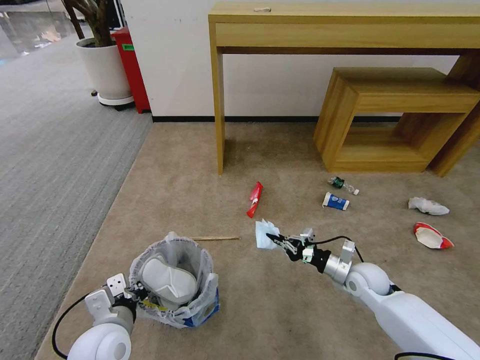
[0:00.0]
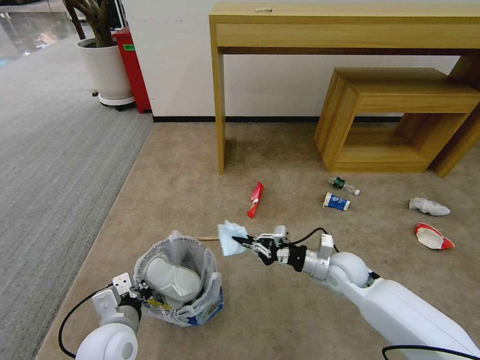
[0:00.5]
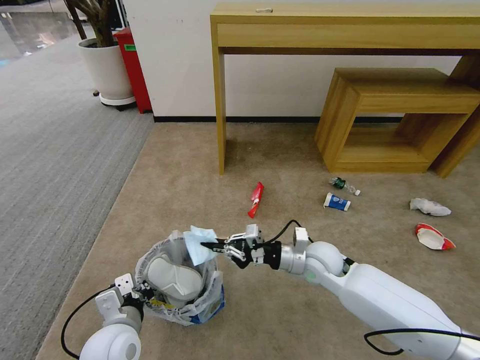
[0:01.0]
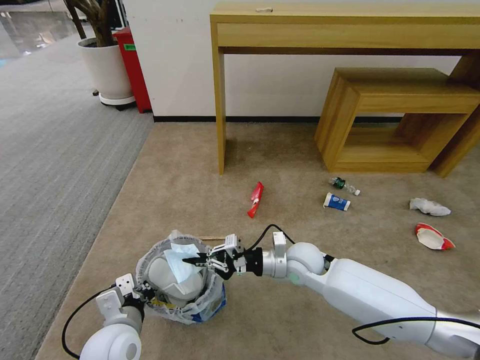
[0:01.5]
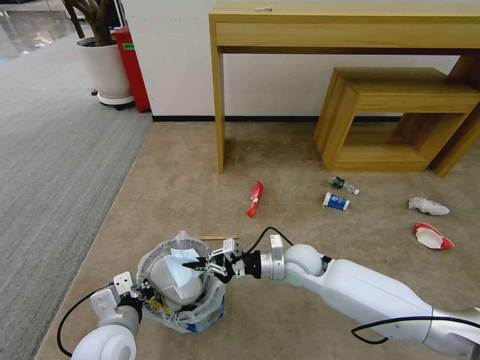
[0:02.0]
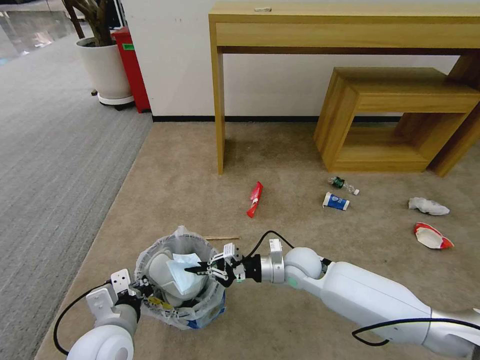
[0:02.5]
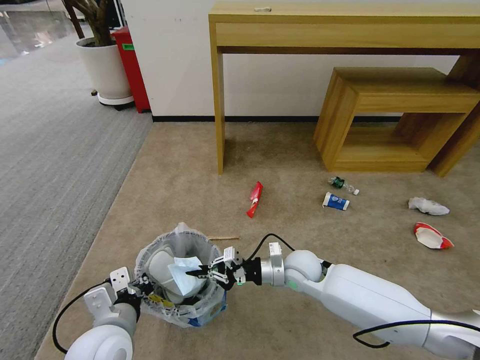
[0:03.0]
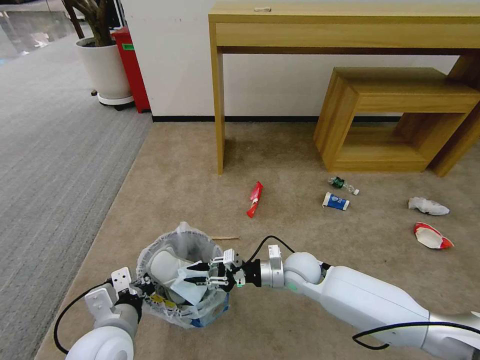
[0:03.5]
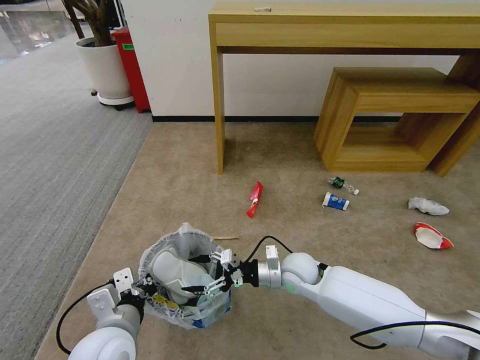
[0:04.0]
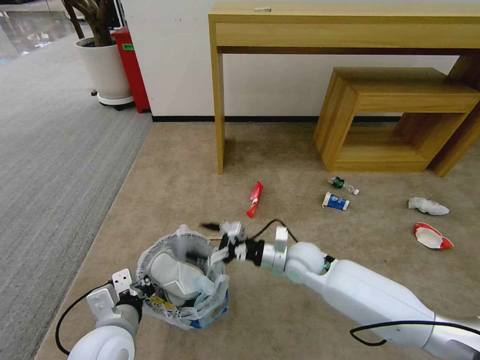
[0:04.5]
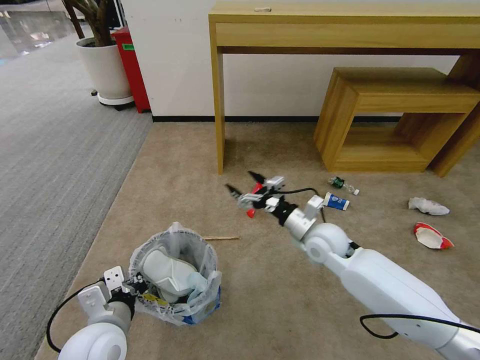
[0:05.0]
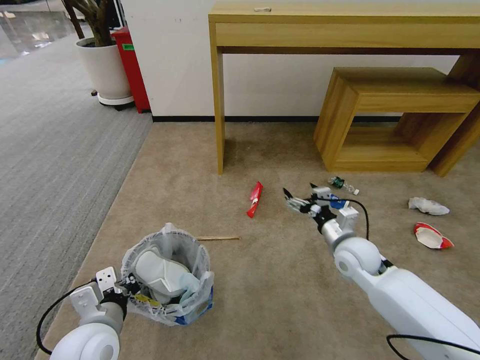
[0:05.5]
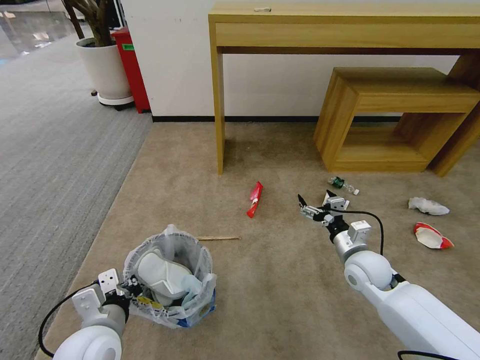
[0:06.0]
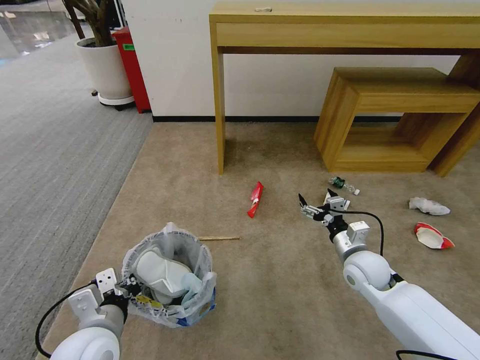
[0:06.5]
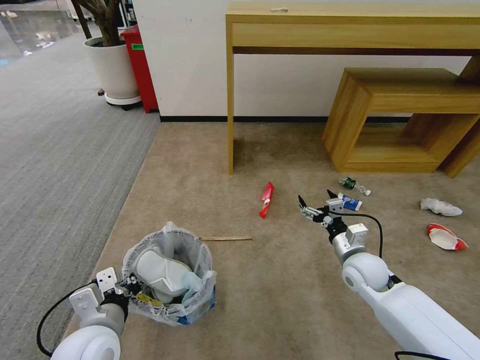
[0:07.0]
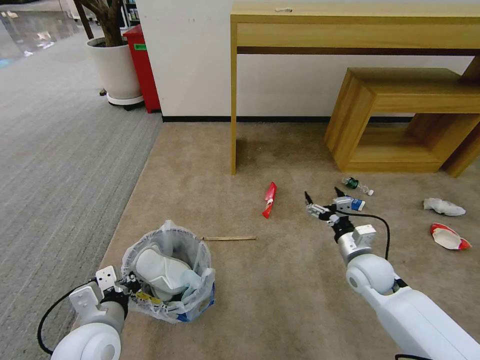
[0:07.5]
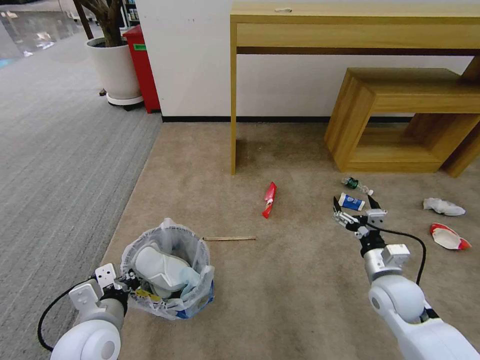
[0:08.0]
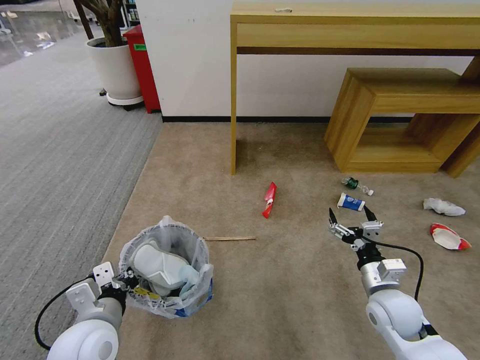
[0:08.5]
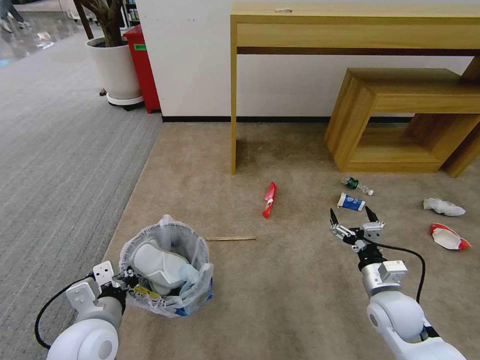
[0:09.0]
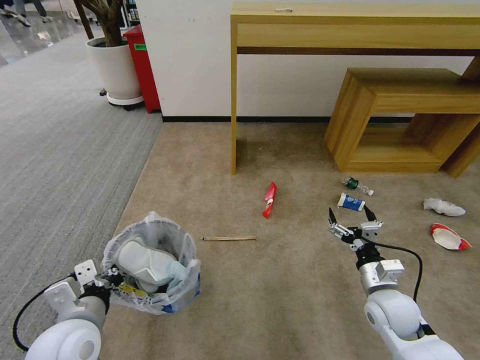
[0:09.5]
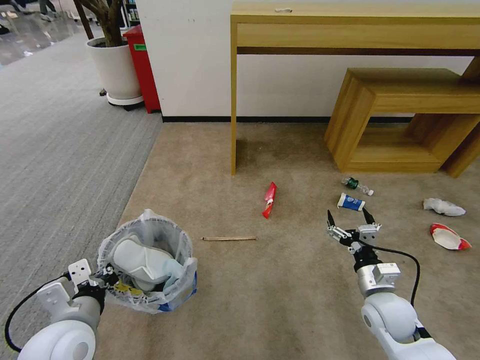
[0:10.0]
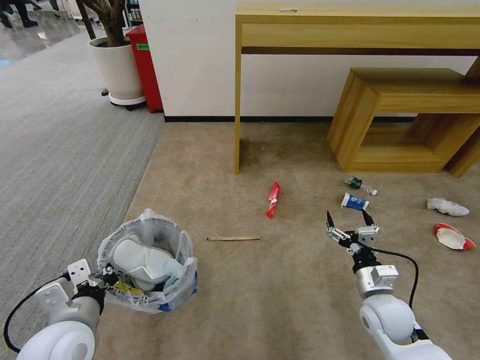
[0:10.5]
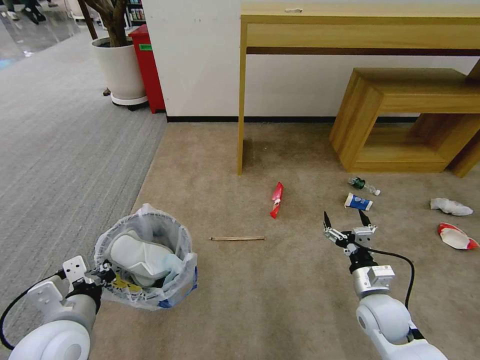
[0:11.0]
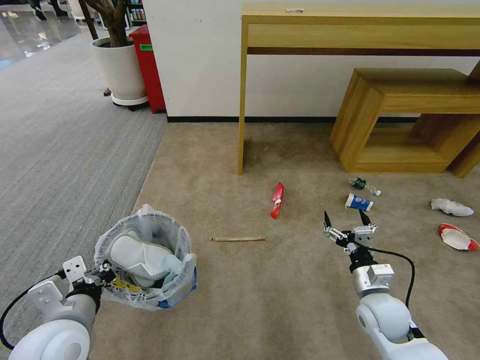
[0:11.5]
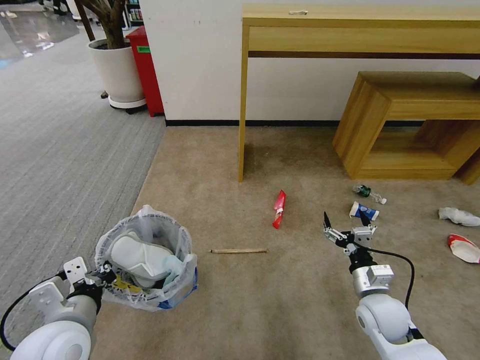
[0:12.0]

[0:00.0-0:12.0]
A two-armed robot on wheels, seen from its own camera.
Task of the whole recording: Pick up the trash bin and place the garbage on the floor into it.
0:00.0 to 0:02.0: The right gripper goes about 20 cm to the left.
0:02.0 to 0:04.0: The right gripper opens up.
0:04.0 to 0:06.0: The right gripper goes about 15 cm to the right.
0:06.0 to 0:08.0: The right gripper travels backward by roughly 5 cm.
0:08.0 to 0:12.0: The grippers make only small movements.

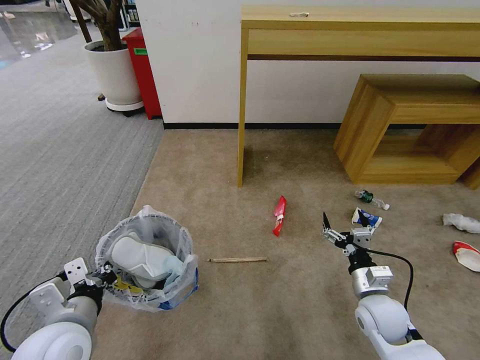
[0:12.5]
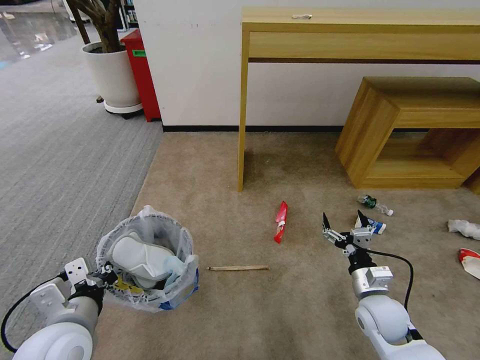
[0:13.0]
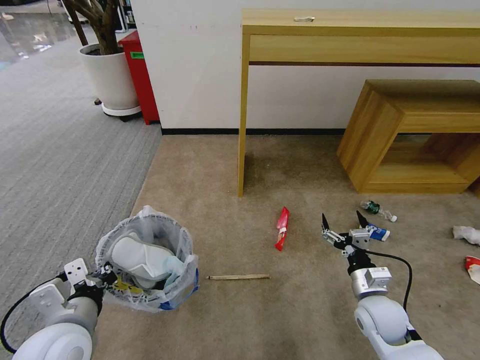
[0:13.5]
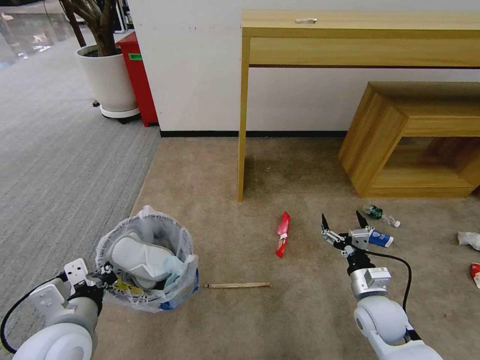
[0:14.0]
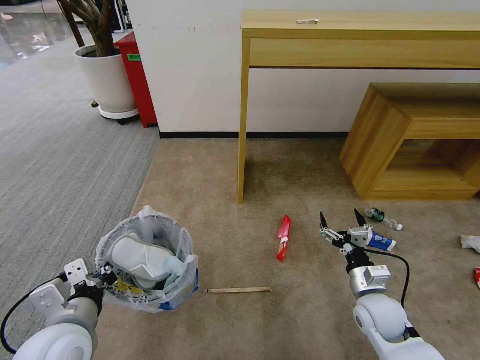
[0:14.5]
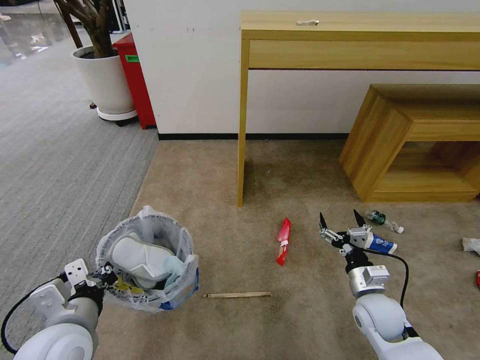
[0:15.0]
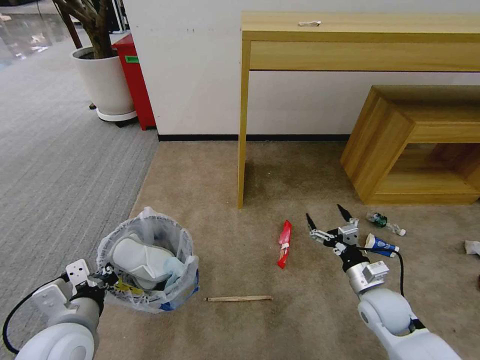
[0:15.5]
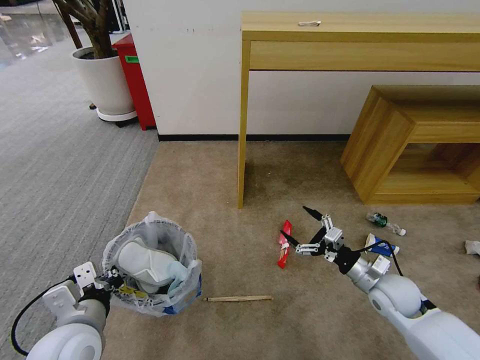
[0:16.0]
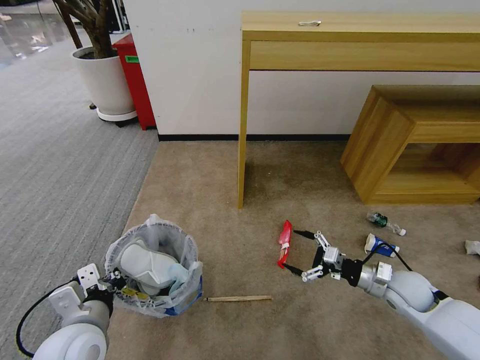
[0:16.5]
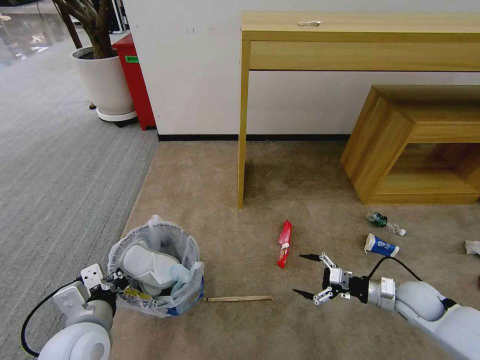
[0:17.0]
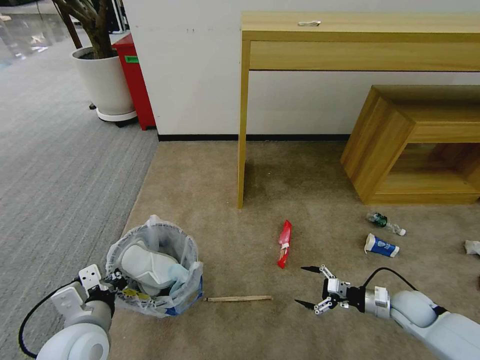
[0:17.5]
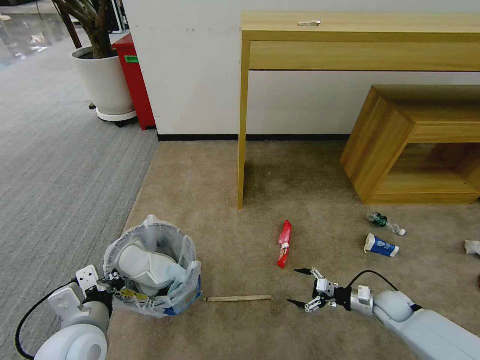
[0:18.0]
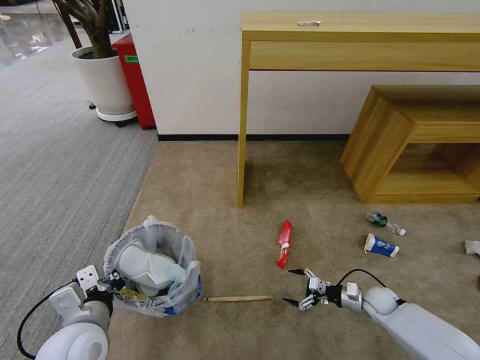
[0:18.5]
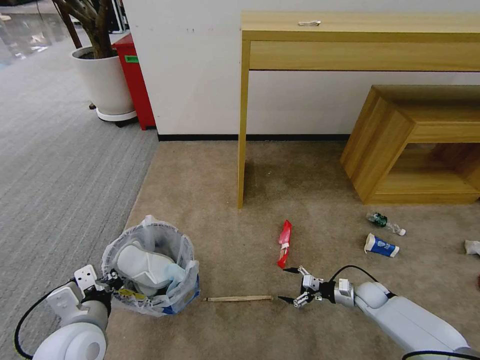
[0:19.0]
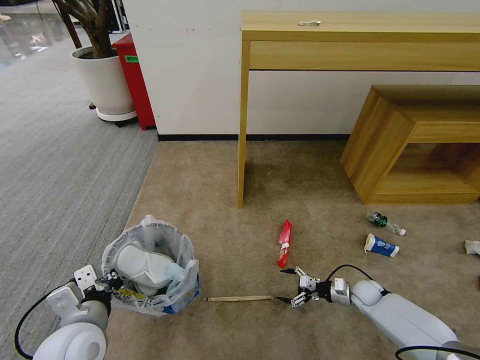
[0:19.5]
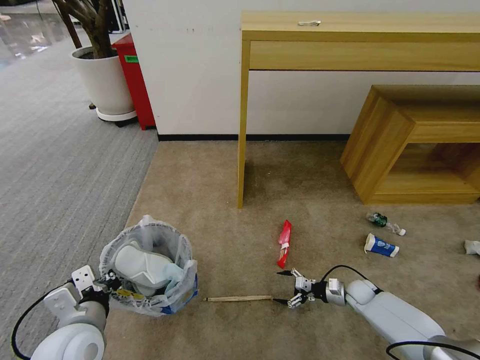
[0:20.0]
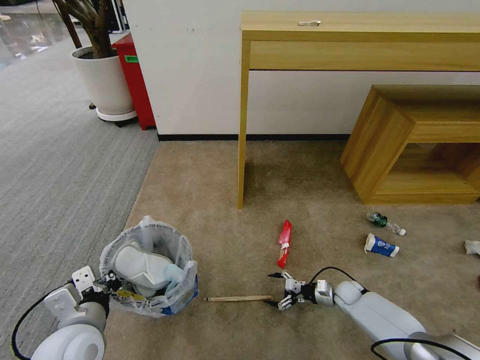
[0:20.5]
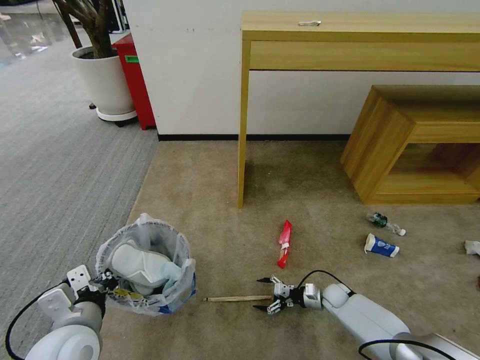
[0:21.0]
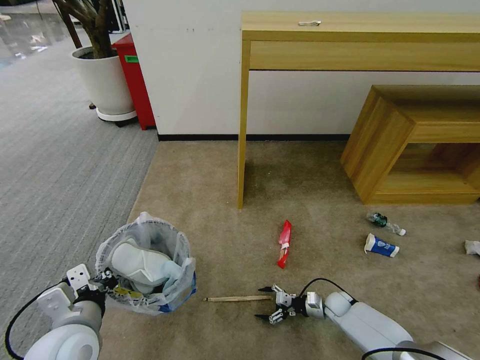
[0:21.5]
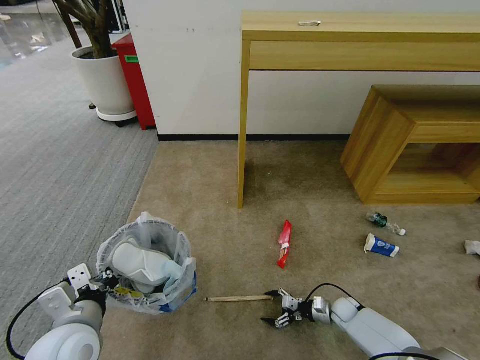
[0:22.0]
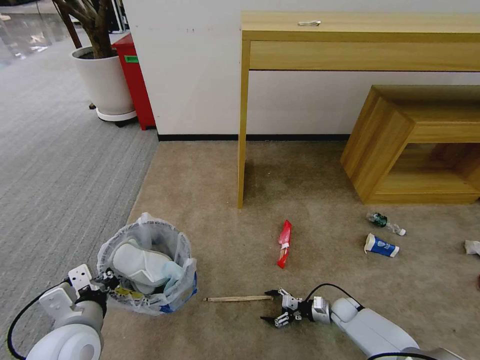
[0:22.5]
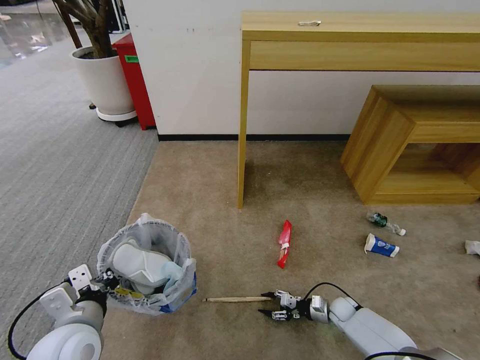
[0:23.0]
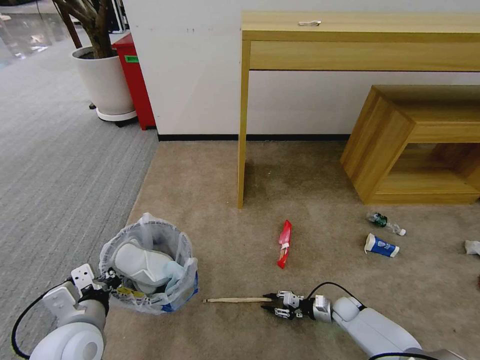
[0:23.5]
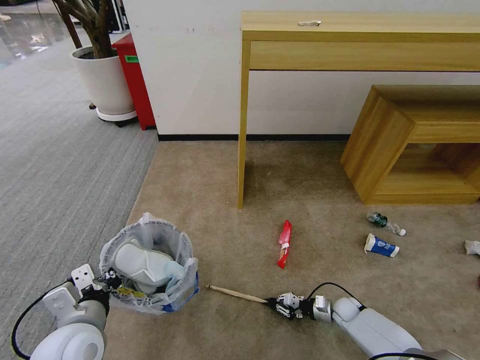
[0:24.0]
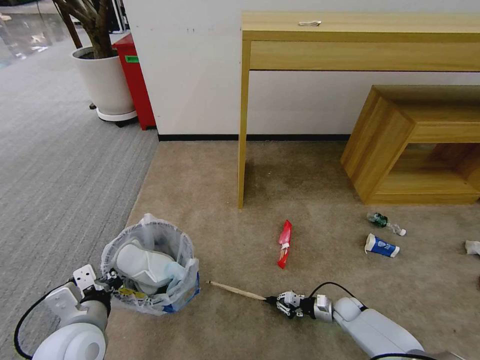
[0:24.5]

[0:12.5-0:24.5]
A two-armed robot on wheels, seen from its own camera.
Task of the whole recording: Pick up the trash bin and place the garbage on the floor into it.
0:14.5 to 0:16.5: The right gripper heads to the right, covering roughly 10 cm.
0:16.5 to 0:18.5: The right gripper shifts roughly 15 cm downward.
0:18.5 to 0:20.5: The right gripper shifts about 5 cm to the left.
0:20.5 to 0:22.5: The right gripper ends up approximately 5 cm from where it was.
0:22.5 to 0:24.5: The right gripper closes.

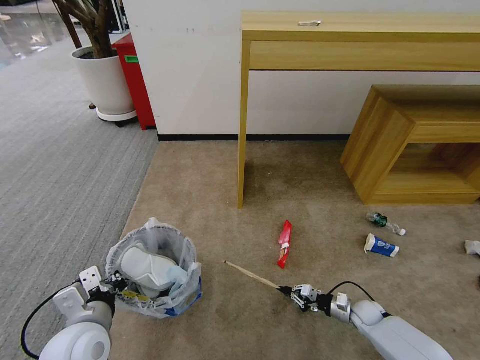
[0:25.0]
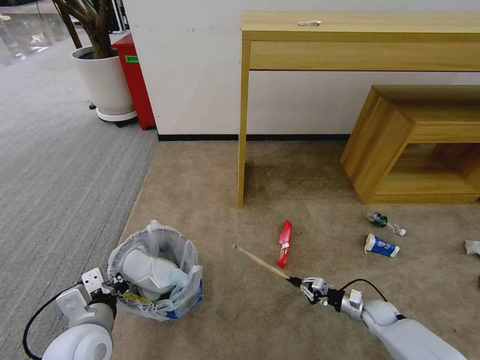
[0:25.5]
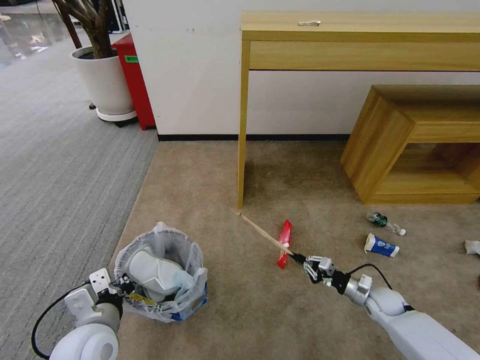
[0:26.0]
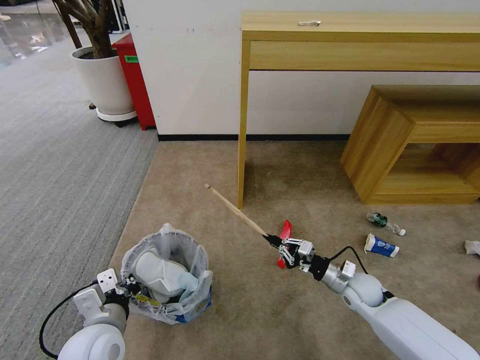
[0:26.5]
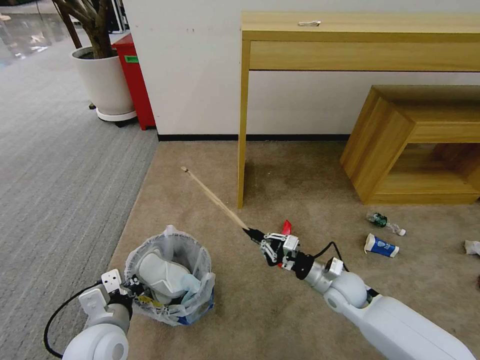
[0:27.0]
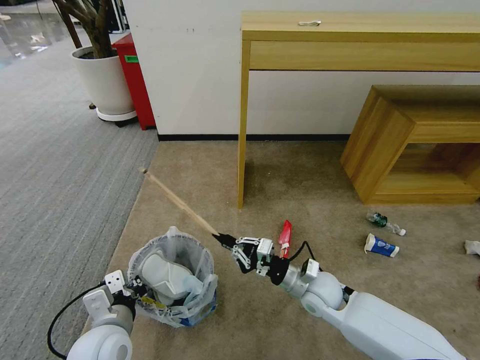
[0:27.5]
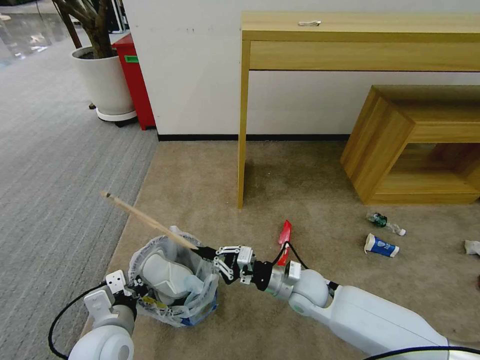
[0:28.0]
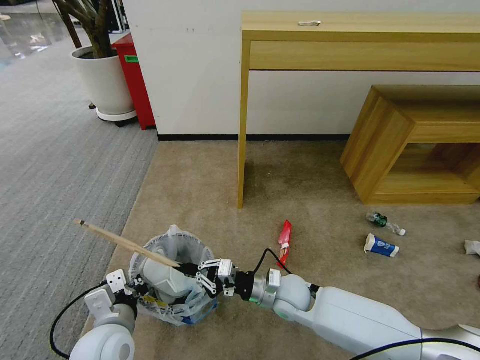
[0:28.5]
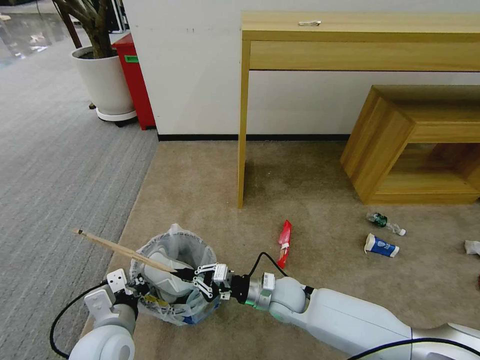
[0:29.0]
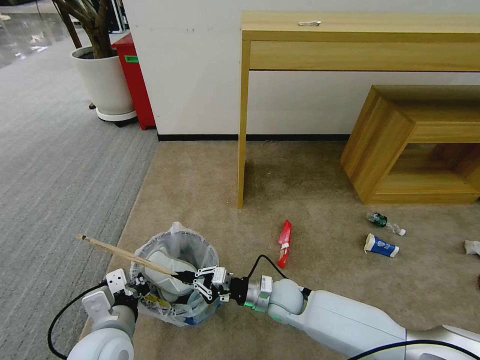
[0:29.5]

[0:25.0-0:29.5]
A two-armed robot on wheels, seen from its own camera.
Task of the whole recording: Pick up the trash bin and place the garbage on the floor into it.
0:25.0 to 0:27.0: The right gripper moves upward and to the left, some 25 cm.
0:27.0 to 0:29.5: The right gripper moves to the left, some 15 cm.
